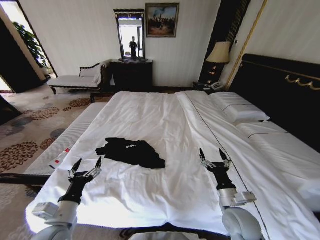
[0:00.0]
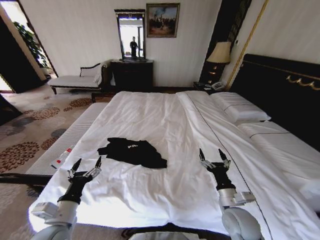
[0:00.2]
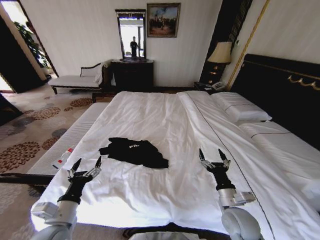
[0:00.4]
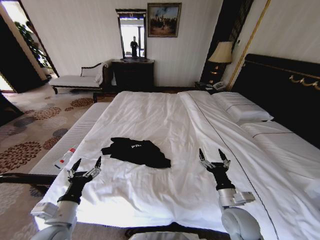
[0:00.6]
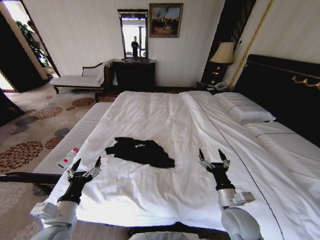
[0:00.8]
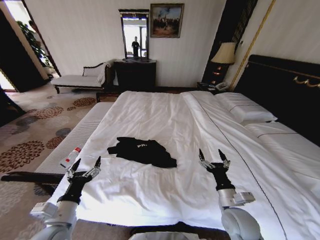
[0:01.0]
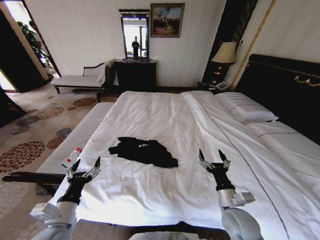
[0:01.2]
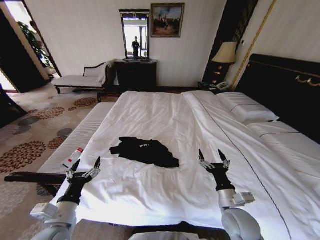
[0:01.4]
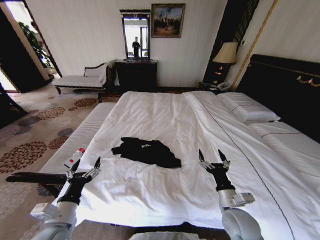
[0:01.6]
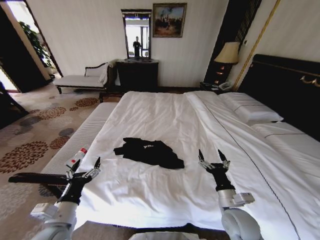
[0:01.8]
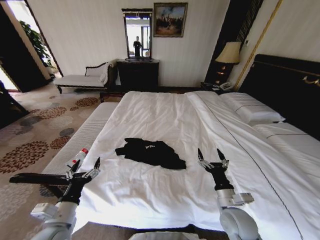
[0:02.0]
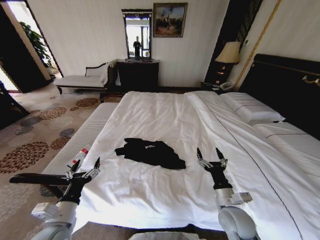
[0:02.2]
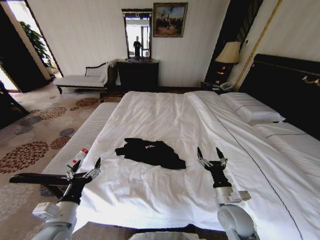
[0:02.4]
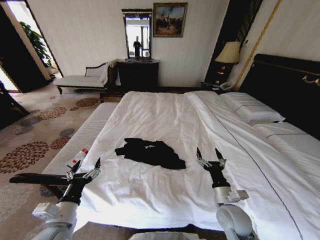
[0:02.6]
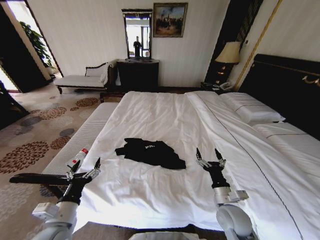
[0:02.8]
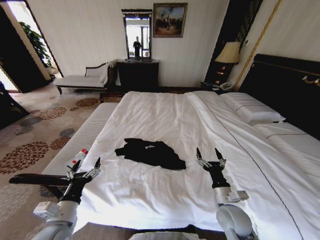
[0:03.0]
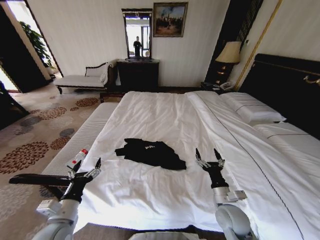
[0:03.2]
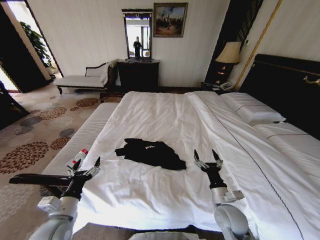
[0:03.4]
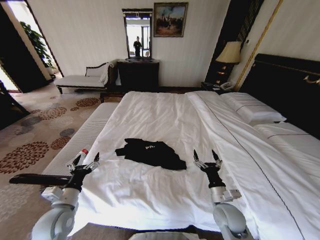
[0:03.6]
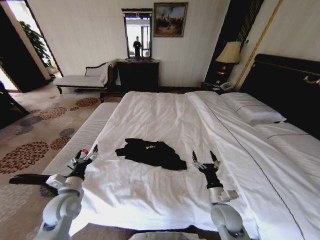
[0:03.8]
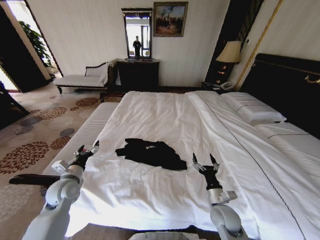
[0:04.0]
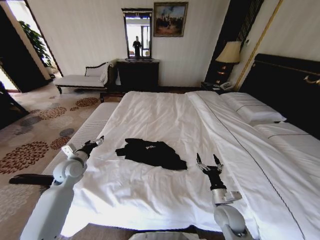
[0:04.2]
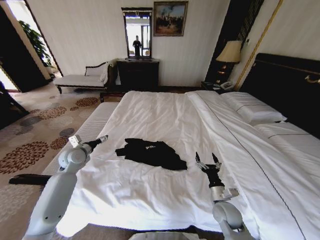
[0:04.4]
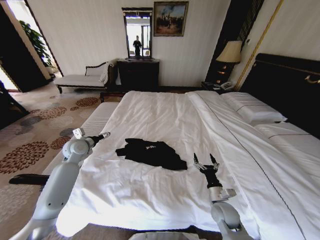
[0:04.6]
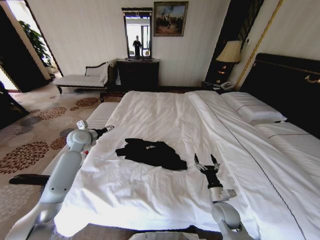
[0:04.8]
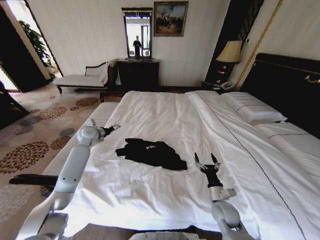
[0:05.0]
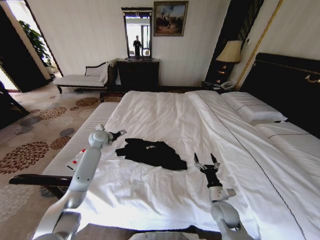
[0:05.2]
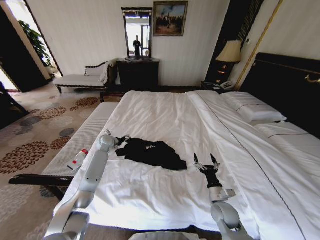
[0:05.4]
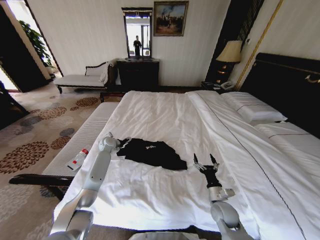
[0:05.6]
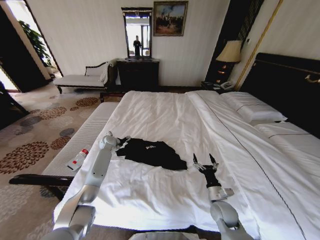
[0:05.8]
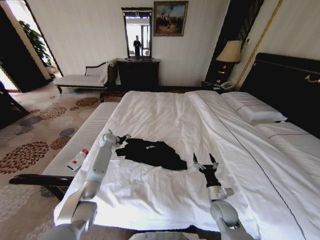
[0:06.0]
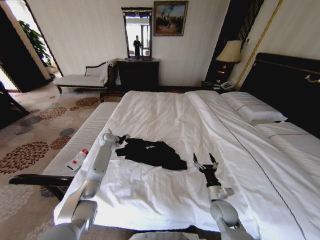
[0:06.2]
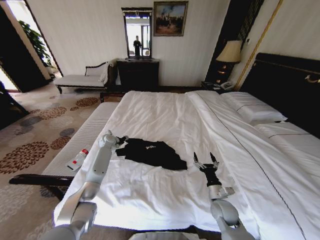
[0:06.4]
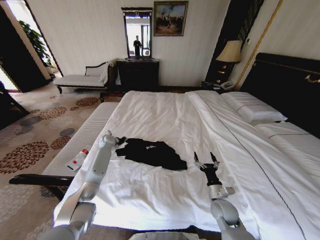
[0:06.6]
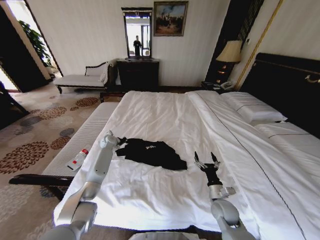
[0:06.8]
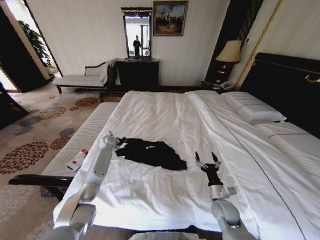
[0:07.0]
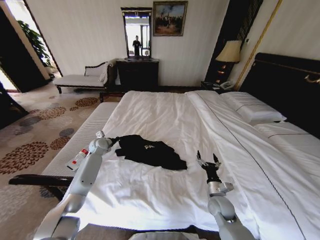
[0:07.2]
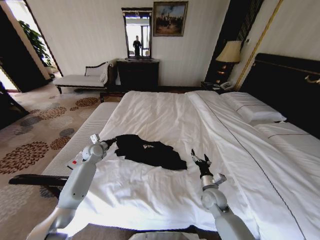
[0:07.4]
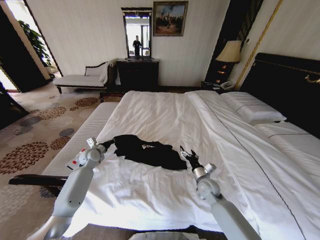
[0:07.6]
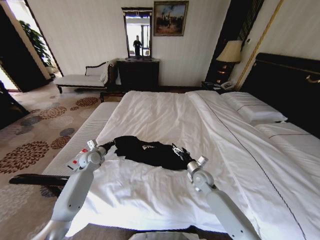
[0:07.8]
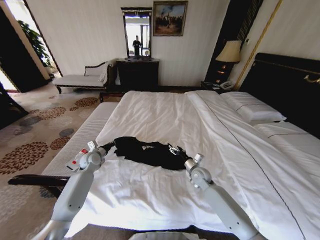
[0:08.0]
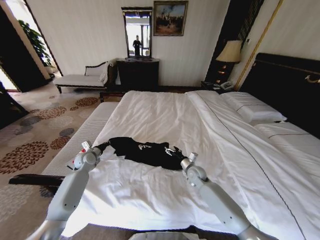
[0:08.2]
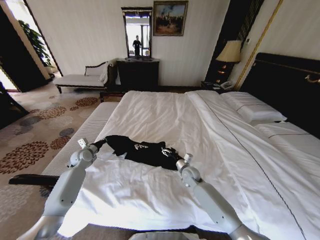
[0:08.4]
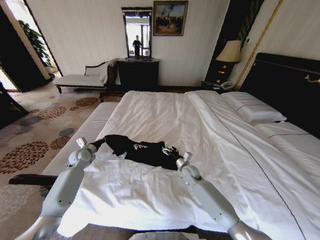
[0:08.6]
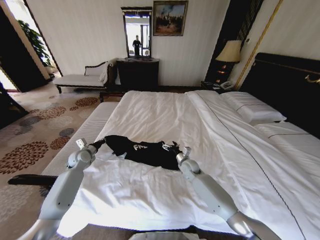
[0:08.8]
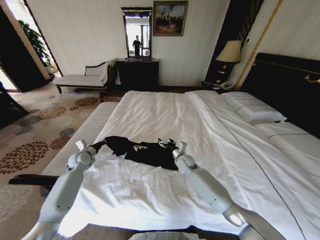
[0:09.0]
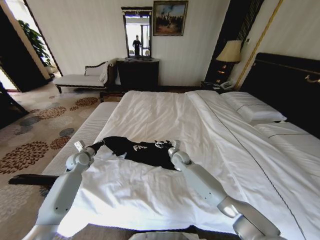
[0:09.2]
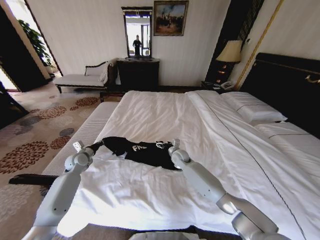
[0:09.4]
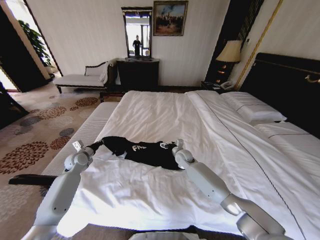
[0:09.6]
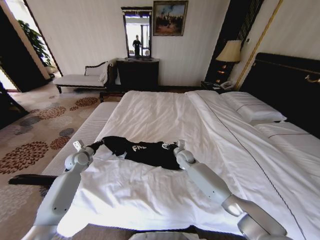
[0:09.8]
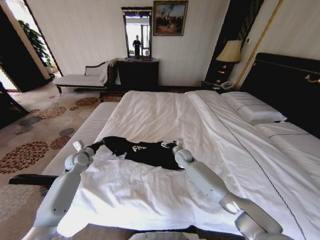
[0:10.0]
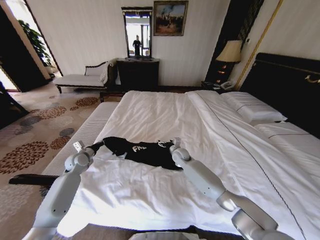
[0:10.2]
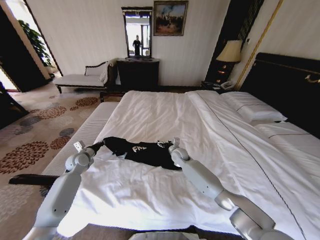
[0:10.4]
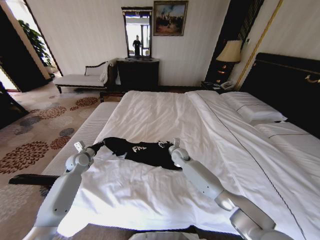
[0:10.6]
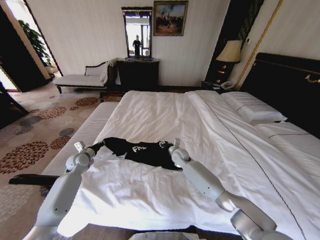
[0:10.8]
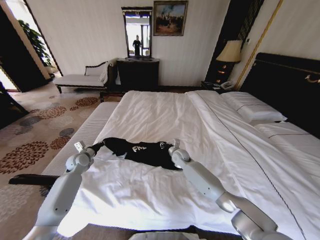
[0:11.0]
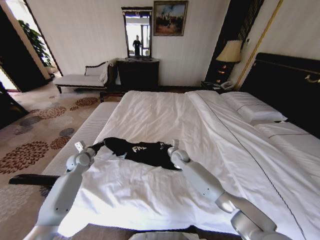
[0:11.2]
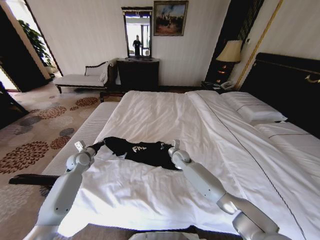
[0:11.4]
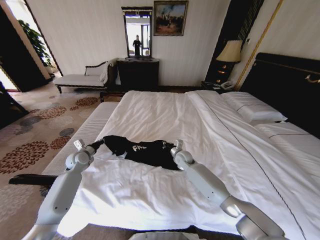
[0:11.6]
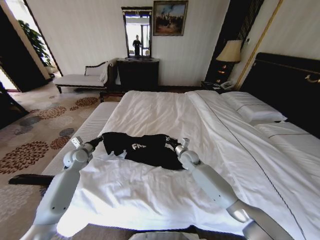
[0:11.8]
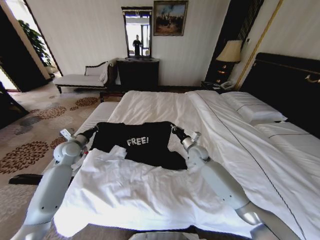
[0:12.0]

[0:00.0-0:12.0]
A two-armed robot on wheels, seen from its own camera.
Task of the whole recording: Fold the clothes on the bed.
0:01.6 to 0:03.0: There are only small adjustments of the grippers.
0:03.0 to 0:04.4: The left gripper travels forward by approximately 25 cm. The right gripper travels downward by about 5 cm.
0:04.4 to 0:06.0: The left gripper is displaced forward, to the right and downward by about 20 cm.
0:06.0 to 0:07.6: The right gripper travels forward by about 10 cm. Meanwhile the left gripper is displaced backward and to the left by approximately 15 cm, and closes its fingers.
0:07.6 to 0:09.0: The right gripper moves forward and to the left, some 15 cm.
0:09.0 to 0:10.4: The grippers move only a little.
0:10.4 to 0:12.0: The left gripper shifts approximately 10 cm upward; the right gripper is displaced to the right and upward by approximately 10 cm, and closes up.

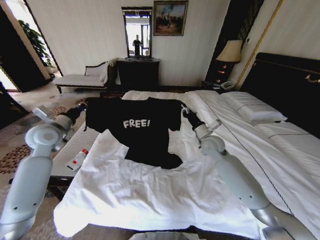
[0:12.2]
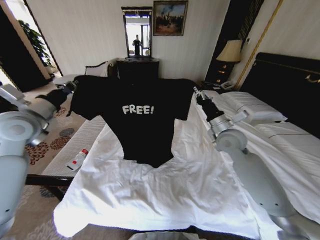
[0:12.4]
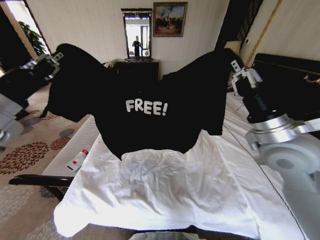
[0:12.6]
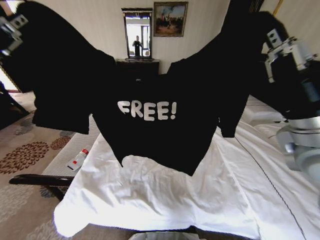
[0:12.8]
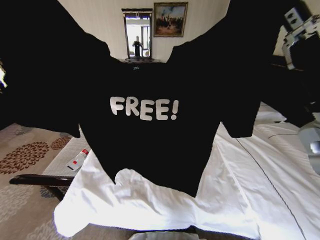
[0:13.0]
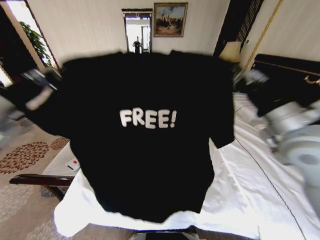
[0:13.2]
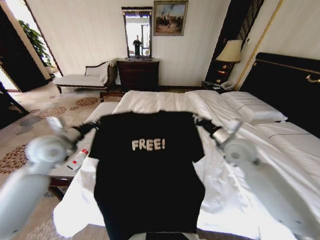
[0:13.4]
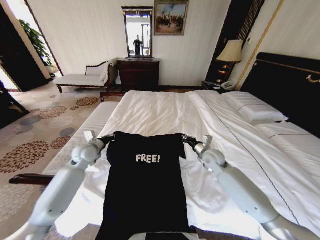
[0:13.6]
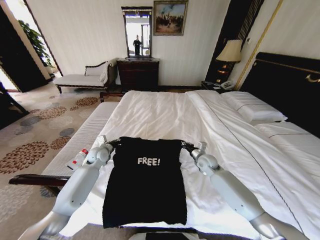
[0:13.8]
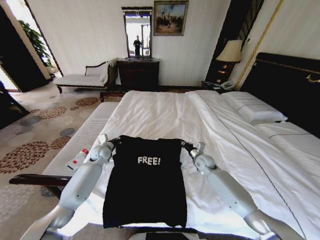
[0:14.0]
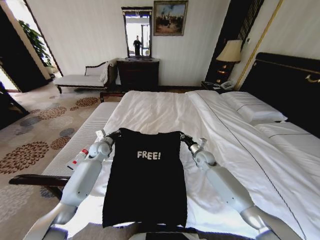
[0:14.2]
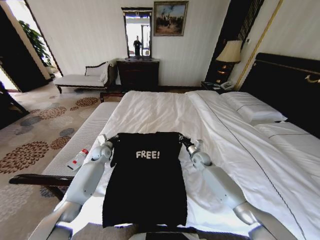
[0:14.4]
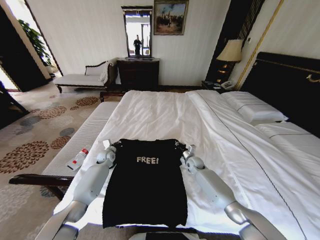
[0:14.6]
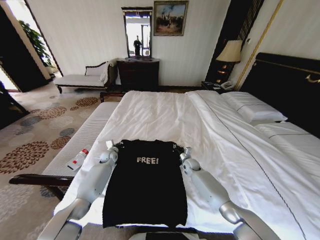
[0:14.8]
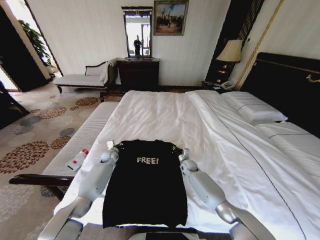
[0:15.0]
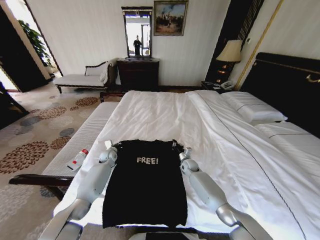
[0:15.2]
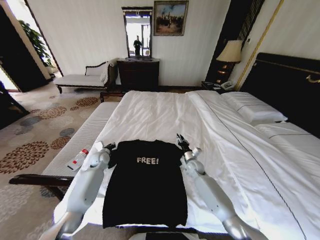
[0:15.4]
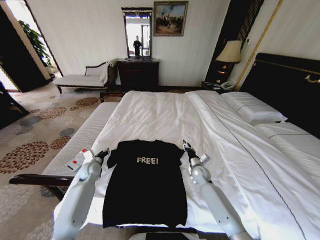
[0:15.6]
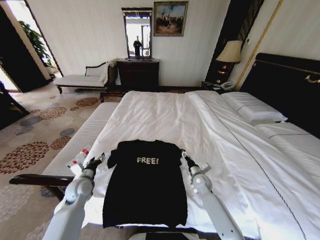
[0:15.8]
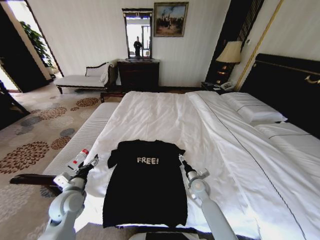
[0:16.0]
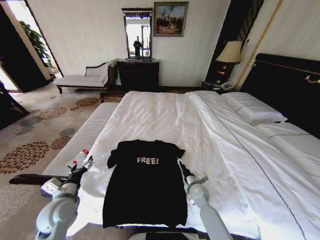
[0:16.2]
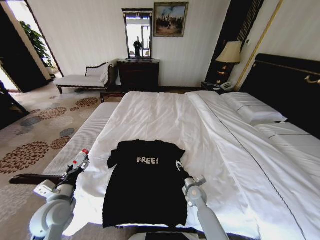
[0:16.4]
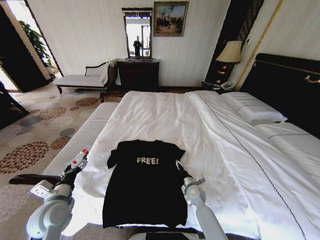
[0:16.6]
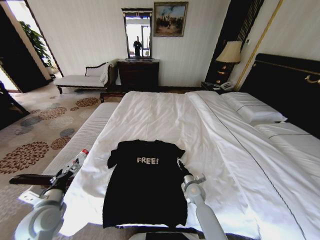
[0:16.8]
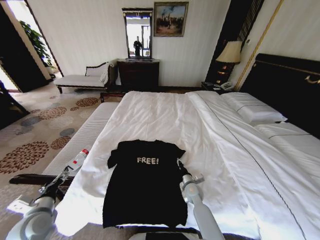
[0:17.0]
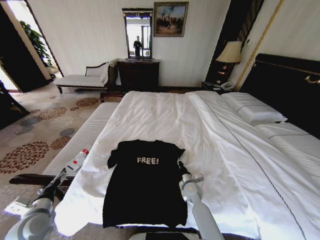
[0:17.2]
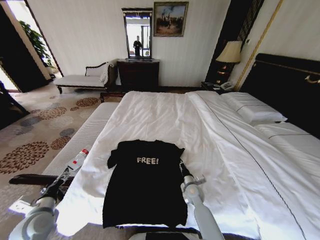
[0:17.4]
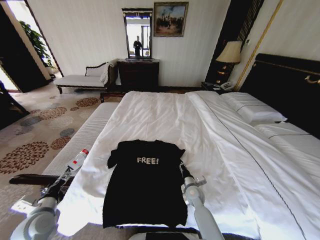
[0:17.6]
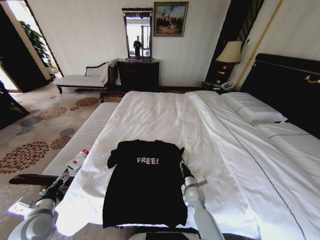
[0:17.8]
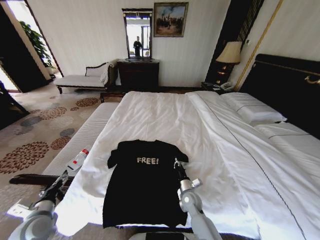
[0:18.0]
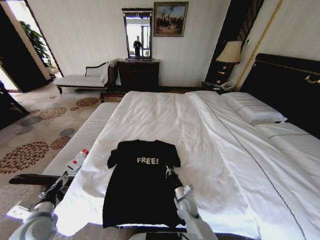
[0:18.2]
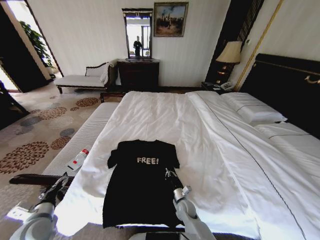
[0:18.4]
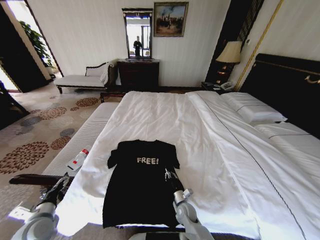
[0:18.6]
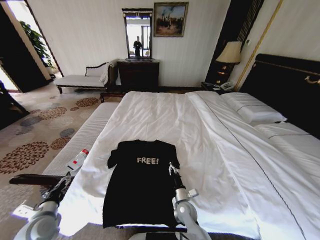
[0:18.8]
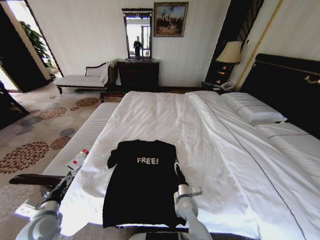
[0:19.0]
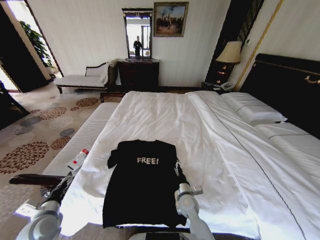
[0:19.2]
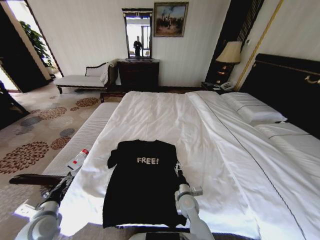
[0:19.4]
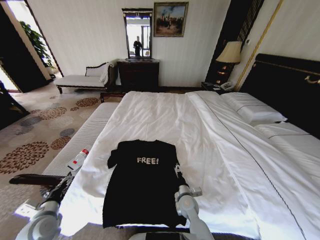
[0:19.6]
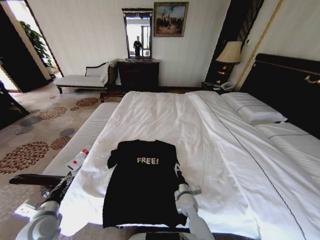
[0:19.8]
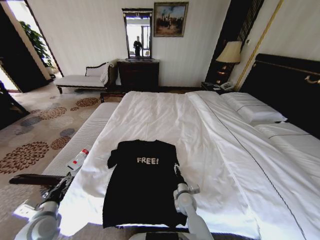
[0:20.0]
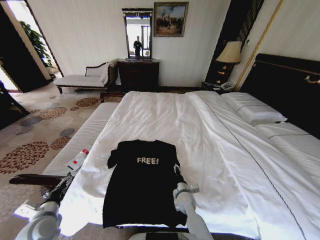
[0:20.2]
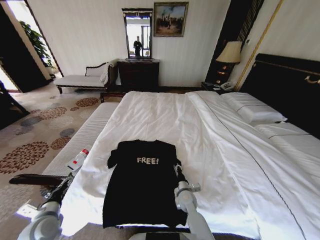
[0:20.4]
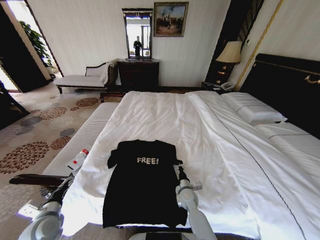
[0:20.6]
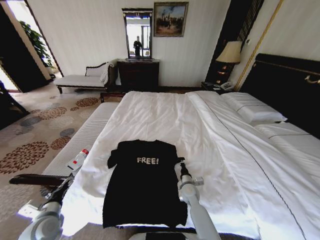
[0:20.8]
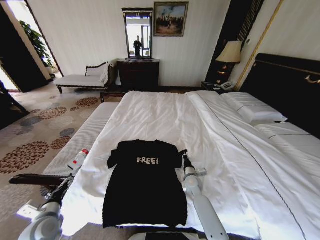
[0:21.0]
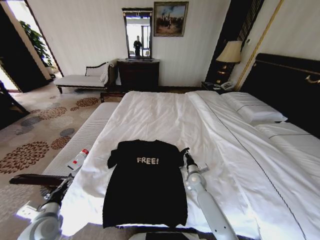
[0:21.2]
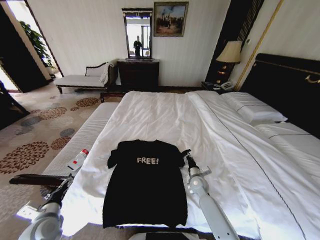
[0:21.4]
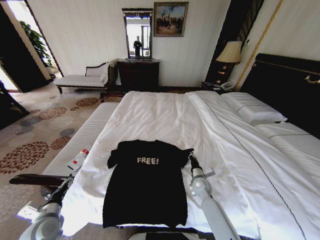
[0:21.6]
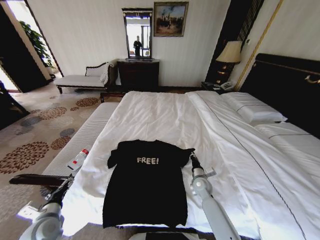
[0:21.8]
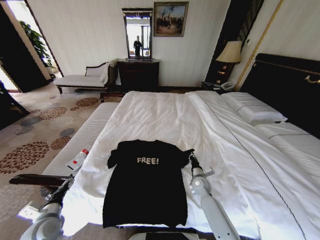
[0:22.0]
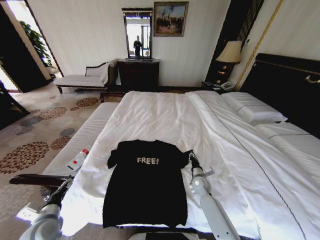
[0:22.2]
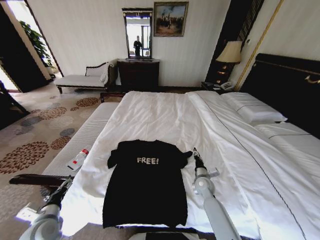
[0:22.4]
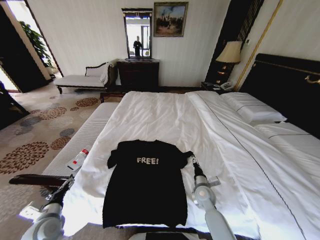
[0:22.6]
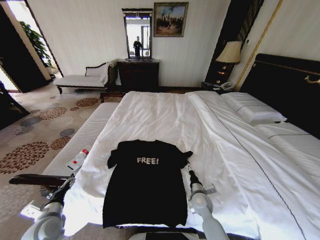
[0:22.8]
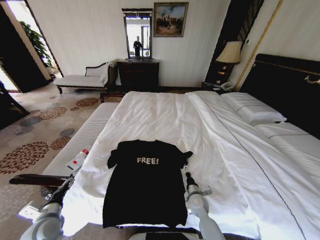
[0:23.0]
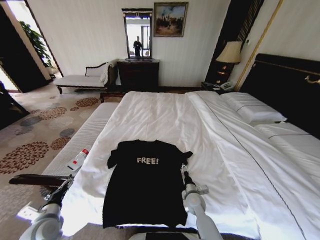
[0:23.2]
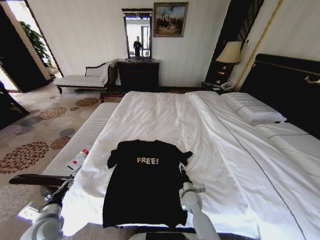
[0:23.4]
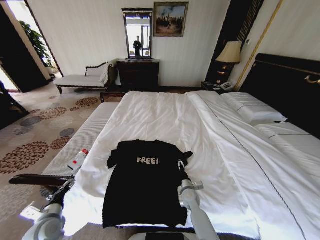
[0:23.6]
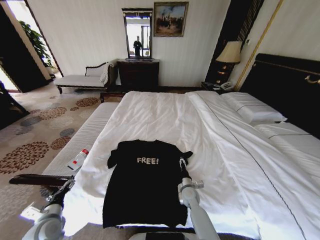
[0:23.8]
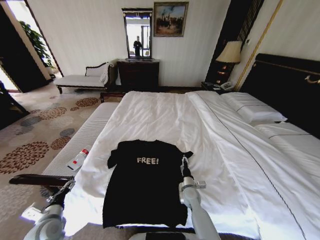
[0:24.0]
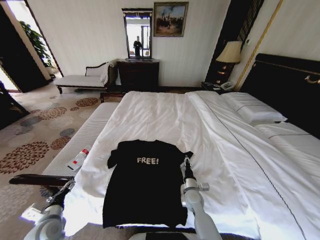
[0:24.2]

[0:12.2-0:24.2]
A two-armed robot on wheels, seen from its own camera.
Task of the whole recording: Fold the clothes on the bed.
0:12.2 to 0:13.8: The right gripper goes upward and returns, some 25 cm each way, while the left gripper goes roughly 20 cm downward and to the right.
0:13.8 to 0:15.2: The right gripper is displaced downward and to the left by about 10 cm. Meanwhile the left gripper goes some 10 cm downward and forward.
0:15.2 to 0:16.6: The left gripper moves backward, roughly 30 cm, and opens, while the right gripper heads backward, covering about 15 cm, and opens up.
0:16.6 to 0:18.2: The left gripper shifts some 5 cm to the left, while the right gripper goes roughly 5 cm downward, and closes.
0:18.2 to 0:19.8: The right gripper travels upward by some 5 cm, and opens.
0:19.8 to 0:21.2: The right gripper moves forward and to the right, some 10 cm, and closes.
0:21.2 to 0:22.6: The right gripper moves backward, about 5 cm, and opens up.
0:22.6 to 0:24.2: The right gripper moves to the left, roughly 5 cm, and opens, then closes once more.
